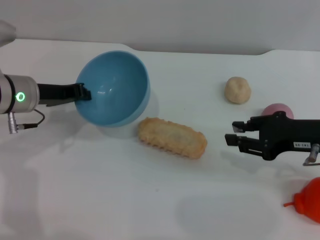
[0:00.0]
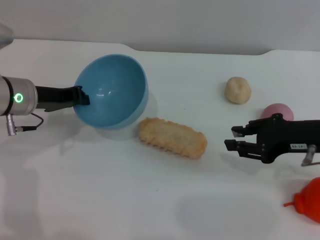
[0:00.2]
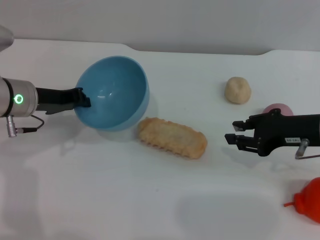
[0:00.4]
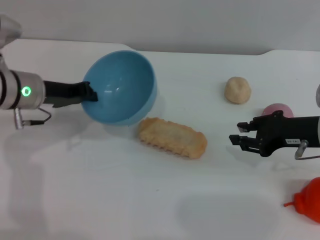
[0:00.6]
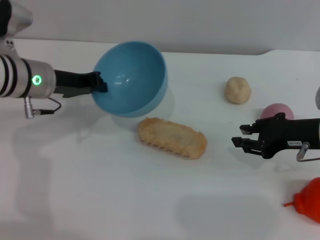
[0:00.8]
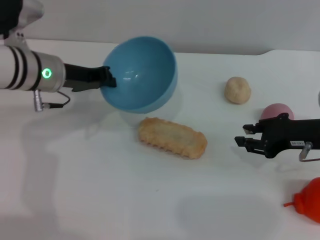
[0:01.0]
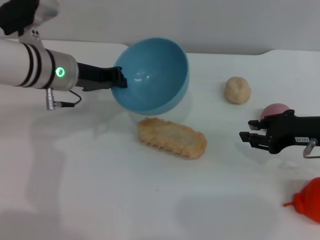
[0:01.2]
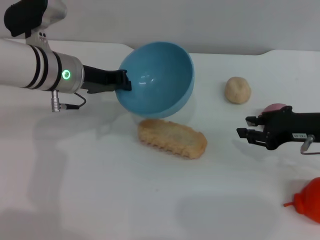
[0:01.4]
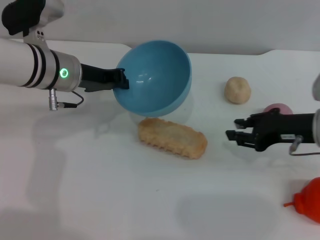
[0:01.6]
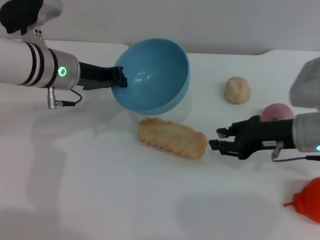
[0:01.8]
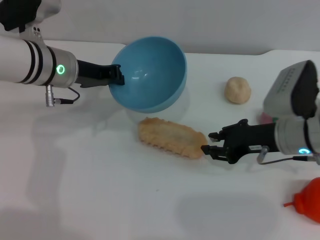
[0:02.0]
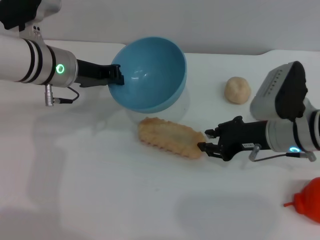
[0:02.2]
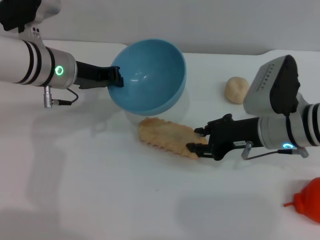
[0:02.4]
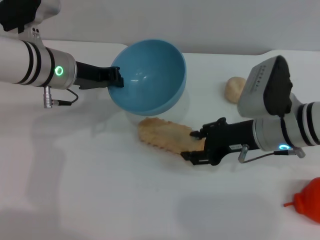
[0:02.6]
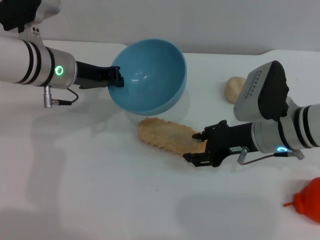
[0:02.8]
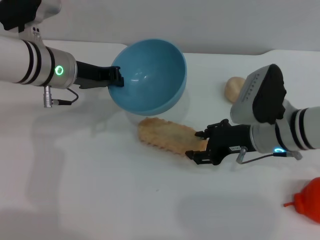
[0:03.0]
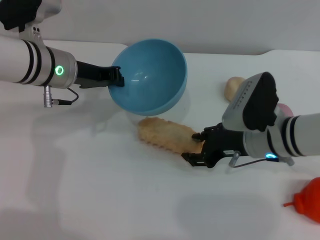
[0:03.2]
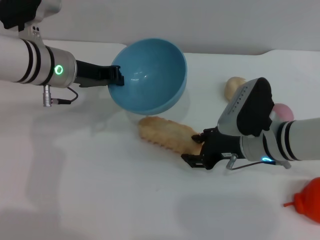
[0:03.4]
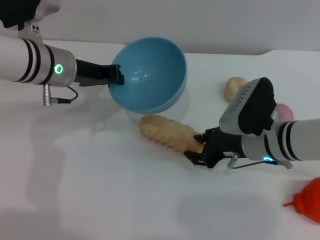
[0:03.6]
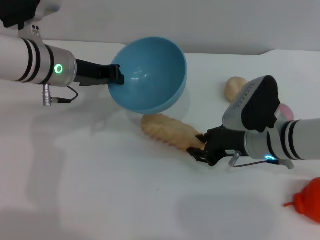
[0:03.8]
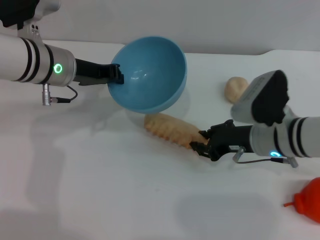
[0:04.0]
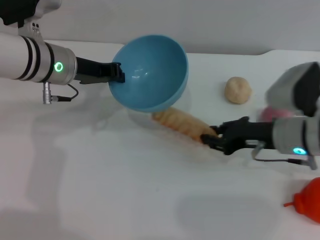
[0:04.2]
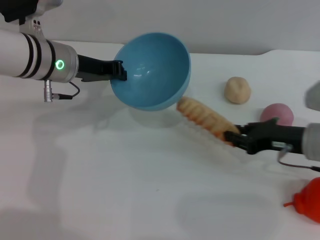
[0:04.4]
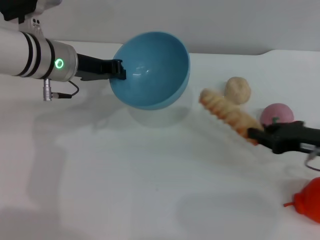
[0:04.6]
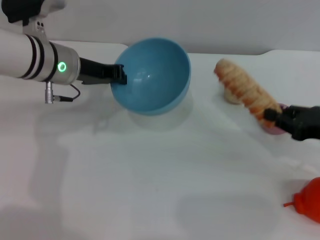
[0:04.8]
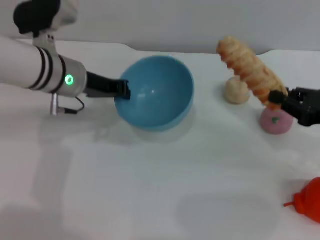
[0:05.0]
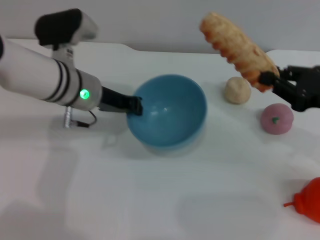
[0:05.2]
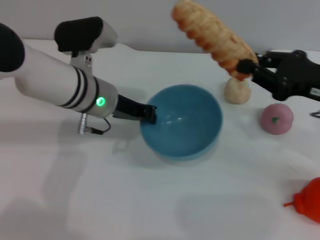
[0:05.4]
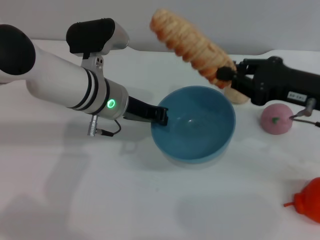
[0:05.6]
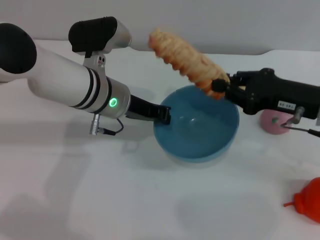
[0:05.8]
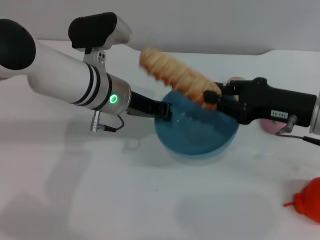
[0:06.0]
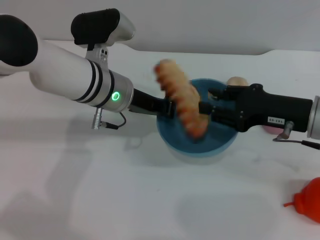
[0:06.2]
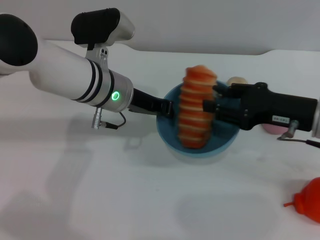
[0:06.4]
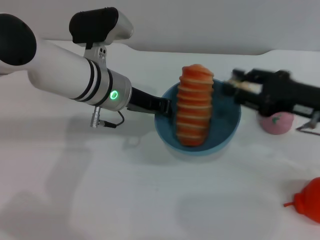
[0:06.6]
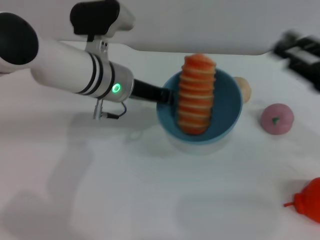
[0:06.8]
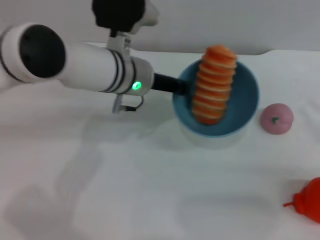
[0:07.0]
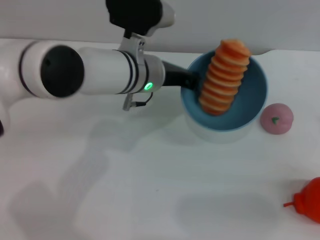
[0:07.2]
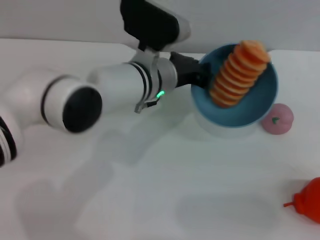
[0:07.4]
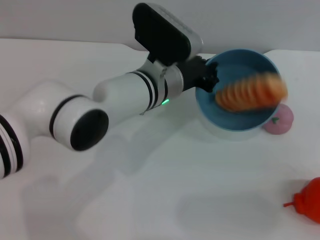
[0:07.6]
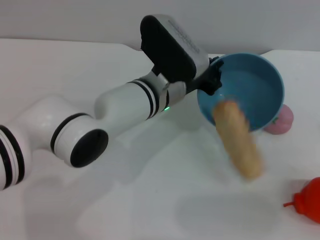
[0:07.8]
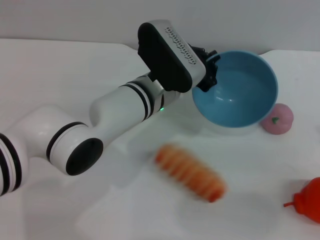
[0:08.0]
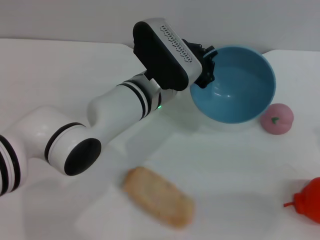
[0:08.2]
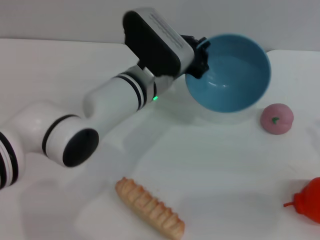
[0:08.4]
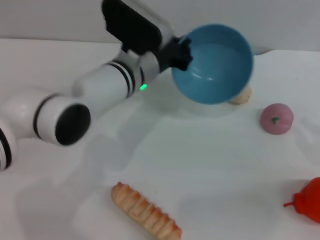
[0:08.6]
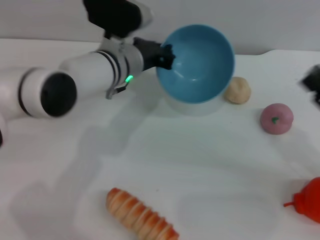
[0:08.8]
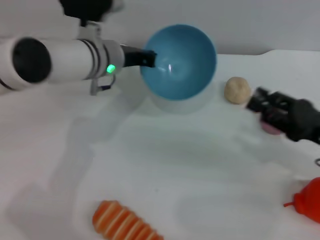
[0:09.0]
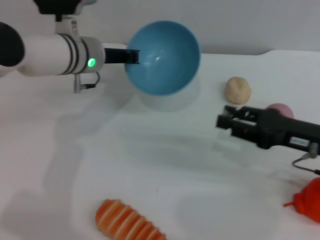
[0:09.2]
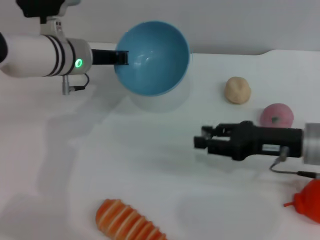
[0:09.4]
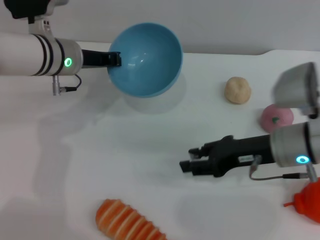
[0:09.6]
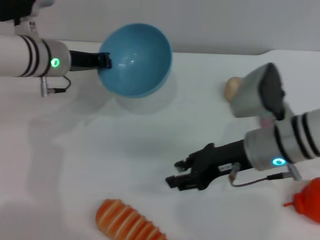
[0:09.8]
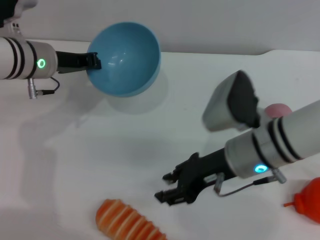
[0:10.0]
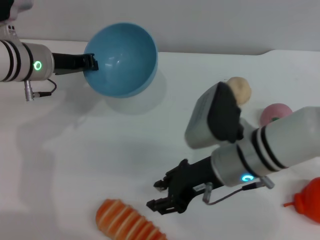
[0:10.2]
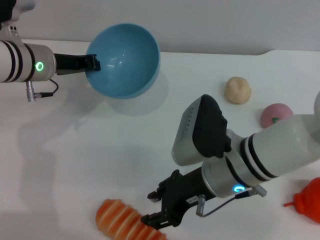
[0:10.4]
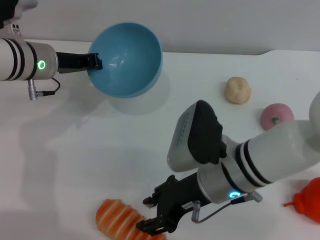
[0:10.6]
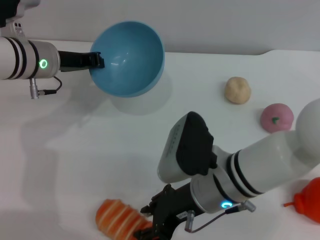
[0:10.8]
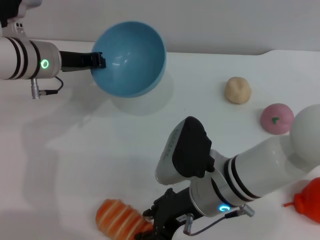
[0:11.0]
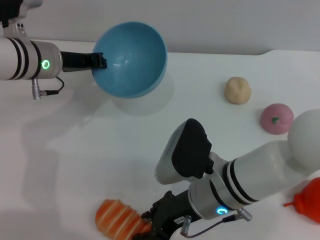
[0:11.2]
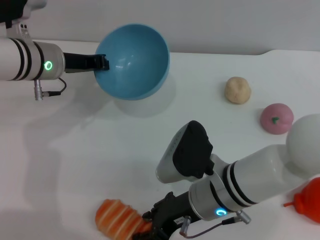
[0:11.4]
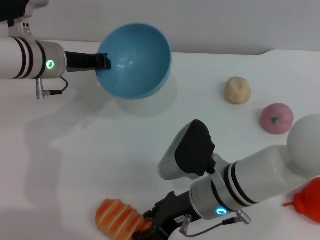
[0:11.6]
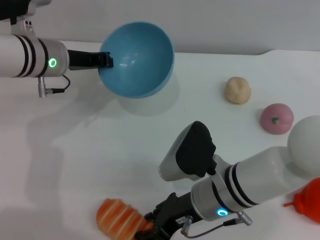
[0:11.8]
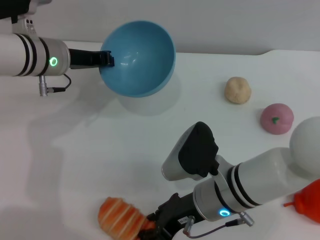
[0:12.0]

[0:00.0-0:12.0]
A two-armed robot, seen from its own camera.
Task of the whole recording: put the bread into the blue bowl and pour it out repeatedly.
Step, 0:00.0 to 0:04.6: Pick up the bread with the right gripper.
Step, 0:04.8 to 0:06.4: Place the bread into the bowl.
Step, 0:06.6 to 0:07.8: Pour the bread out of the bowl.
0:00.0 to 0:01.6: The left gripper shifts some 5 cm to the right.
0:01.6 to 0:03.0: The right gripper moves to the left, some 10 cm.
0:03.0 to 0:04.4: The right gripper is displaced to the right by roughly 5 cm, and closes.
0:04.4 to 0:06.0: The left gripper heads to the right, covering approximately 5 cm. The right gripper shifts roughly 5 cm upward.
0:06.0 to 0:07.6: The left gripper travels to the right by about 10 cm. The right gripper goes about 15 cm to the right and backward, and opens its fingers.
0:07.6 to 0:09.0: The right gripper moves to the left and forward, some 10 cm; the left gripper goes approximately 10 cm to the left.
0:09.0 to 0:10.4: The right gripper moves to the left, approximately 20 cm. The left gripper travels to the left by approximately 10 cm.

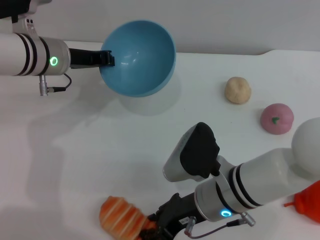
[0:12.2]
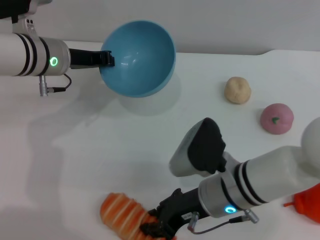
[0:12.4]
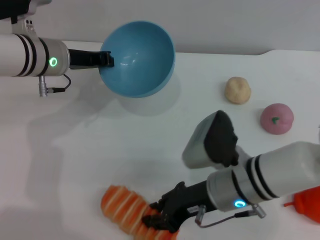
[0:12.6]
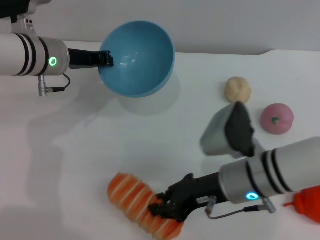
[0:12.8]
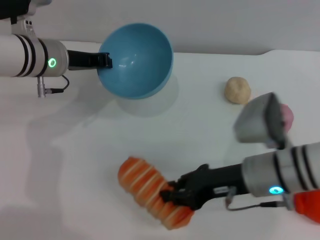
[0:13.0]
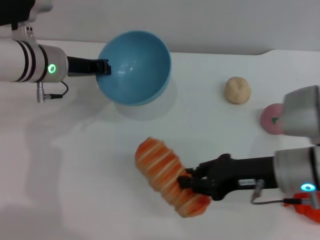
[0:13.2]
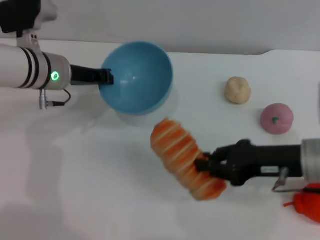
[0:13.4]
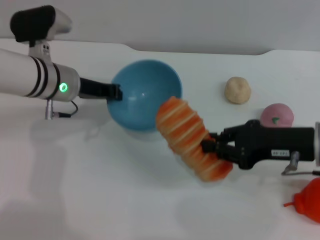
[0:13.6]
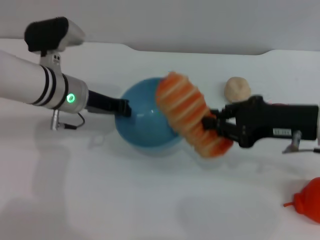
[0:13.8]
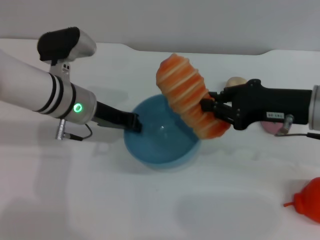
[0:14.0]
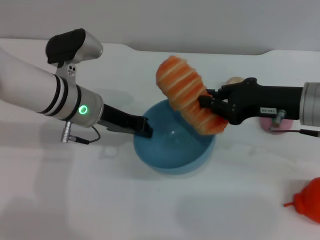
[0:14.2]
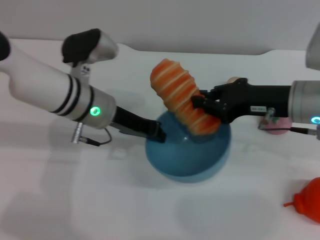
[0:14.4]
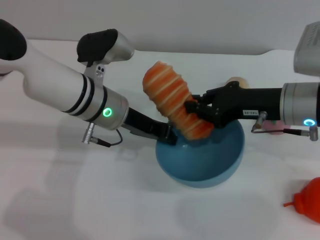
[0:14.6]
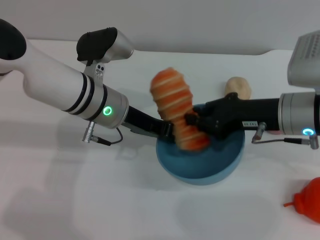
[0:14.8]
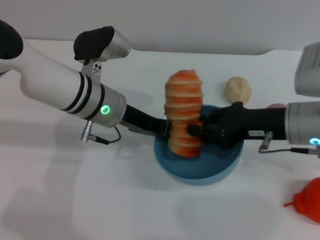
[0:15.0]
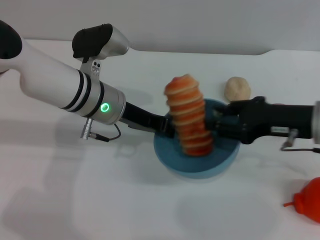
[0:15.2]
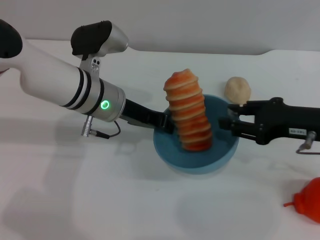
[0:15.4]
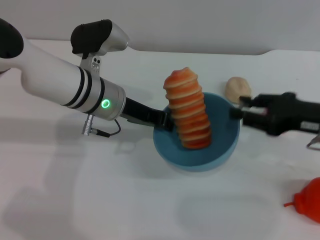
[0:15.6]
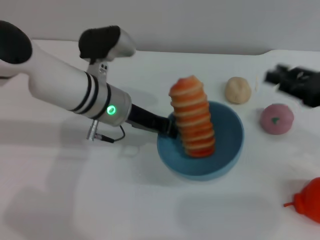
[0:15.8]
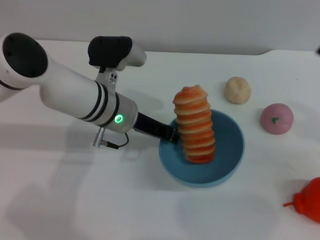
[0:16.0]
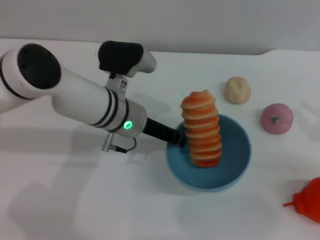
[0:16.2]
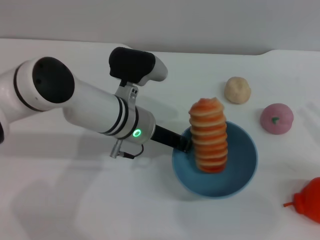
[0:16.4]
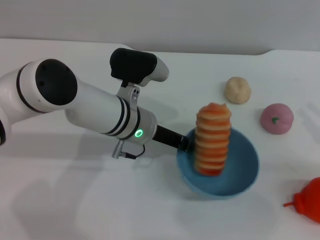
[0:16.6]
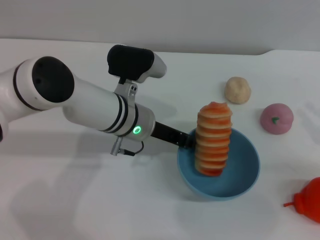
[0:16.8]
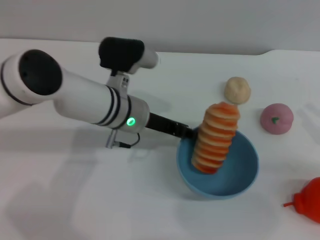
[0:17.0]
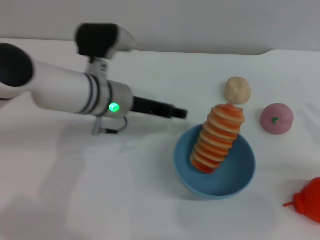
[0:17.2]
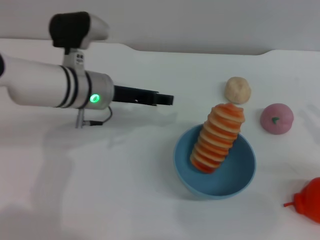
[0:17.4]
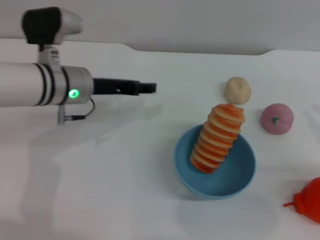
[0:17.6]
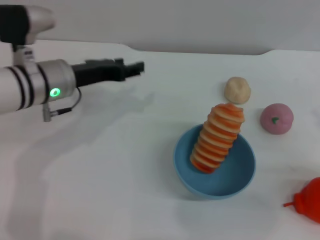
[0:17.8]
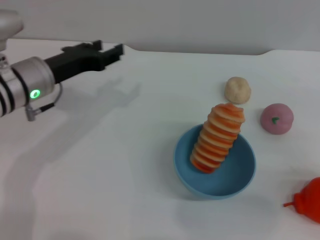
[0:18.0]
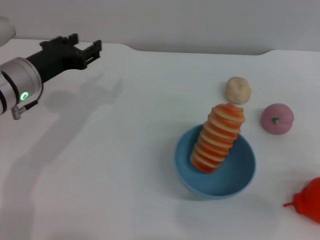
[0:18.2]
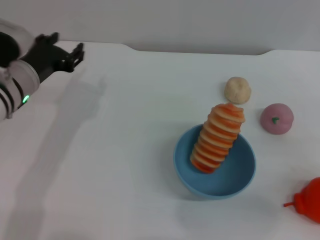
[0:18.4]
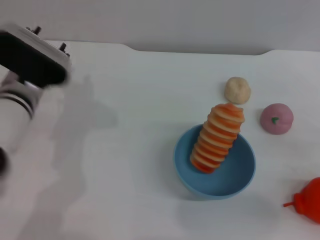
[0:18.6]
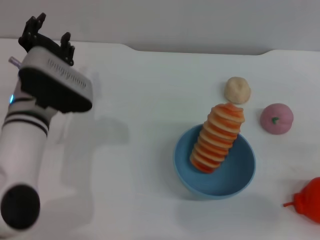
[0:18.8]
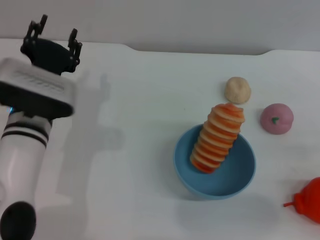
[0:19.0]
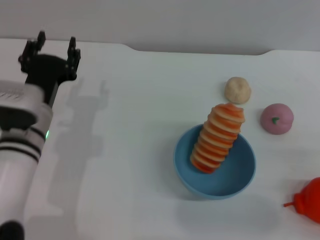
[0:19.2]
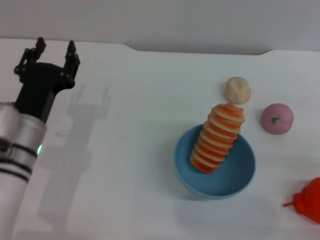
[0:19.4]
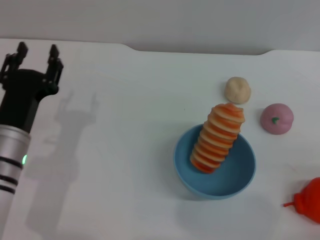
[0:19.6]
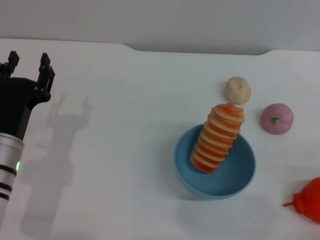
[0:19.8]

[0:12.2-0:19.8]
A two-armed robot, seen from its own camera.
Task of the whole recording: put the bread into the blue bowl and pour it out repeatedly.
Step, 0:13.6 to 0:15.4: Place the bread into the bowl.
Step, 0:15.6 to 0:17.2: Place the bowl on the table.
0:12.2 to 0:13.8: The right gripper shifts some 15 cm to the right and upward, and closes.
0:13.8 to 0:15.2: The right gripper opens. Meanwhile the left gripper moves to the right, about 5 cm.
0:15.2 to 0:16.8: The right gripper travels to the right and backward by roughly 15 cm. The left gripper moves about 5 cm.
0:16.8 to 0:18.2: The left gripper shifts approximately 15 cm to the left, and opens.
0:18.2 to 0:19.8: The left gripper moves backward and downward, about 10 cm.
